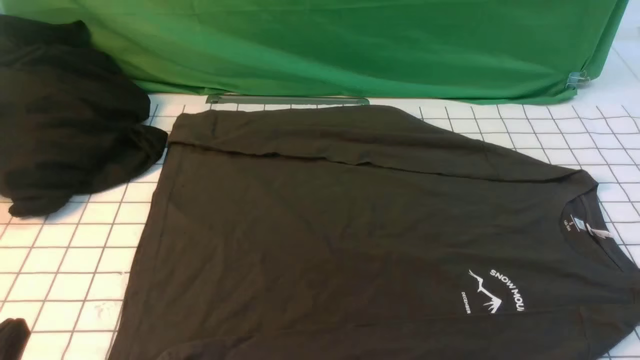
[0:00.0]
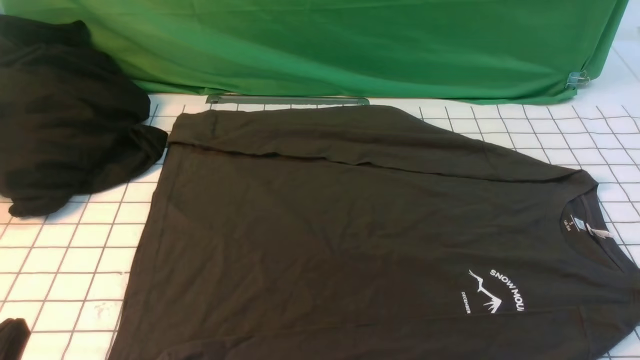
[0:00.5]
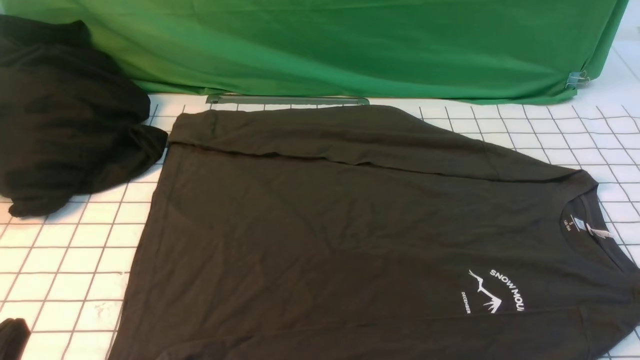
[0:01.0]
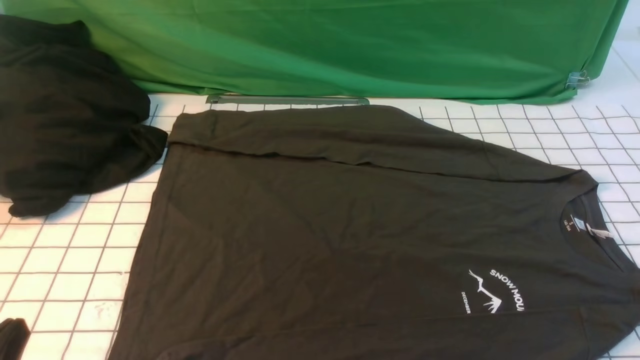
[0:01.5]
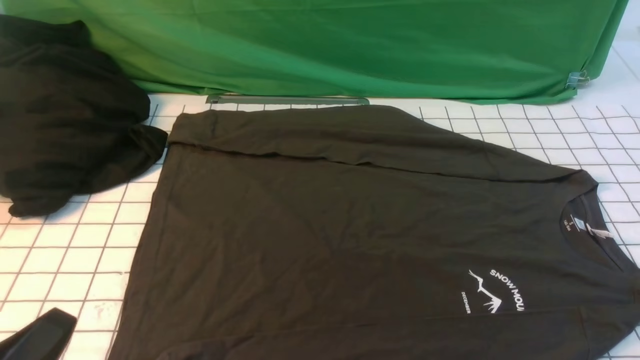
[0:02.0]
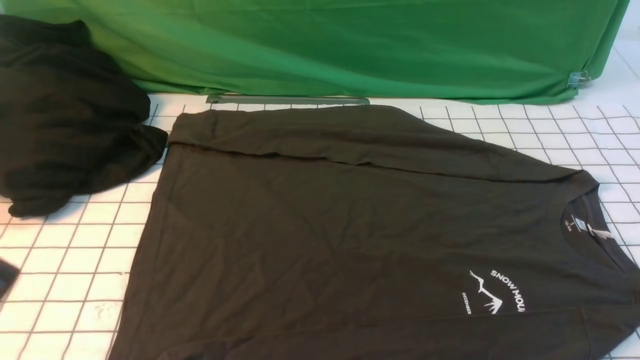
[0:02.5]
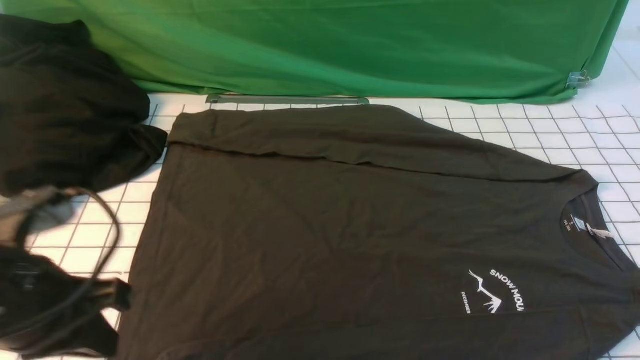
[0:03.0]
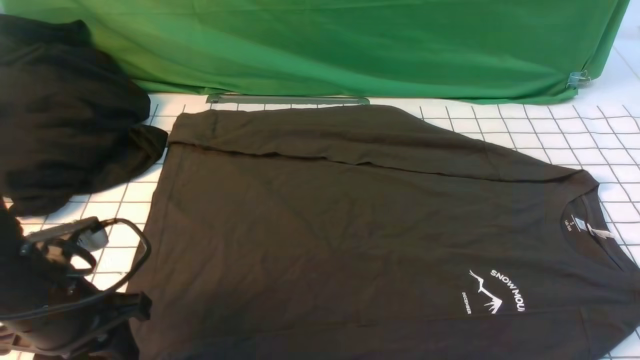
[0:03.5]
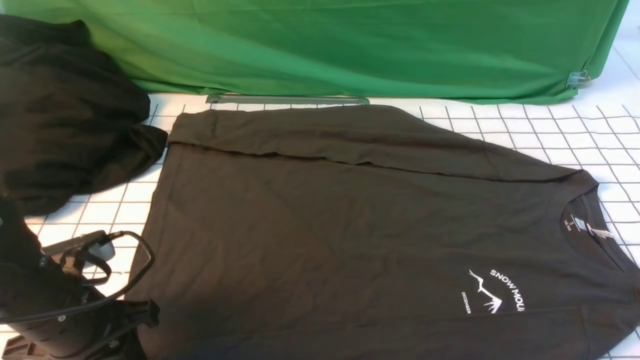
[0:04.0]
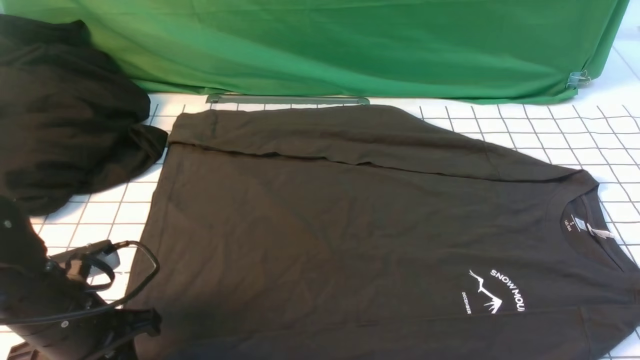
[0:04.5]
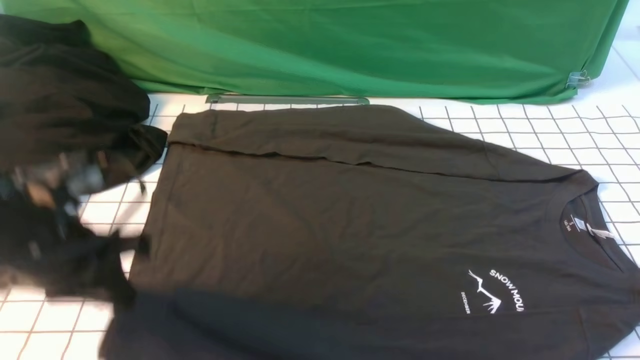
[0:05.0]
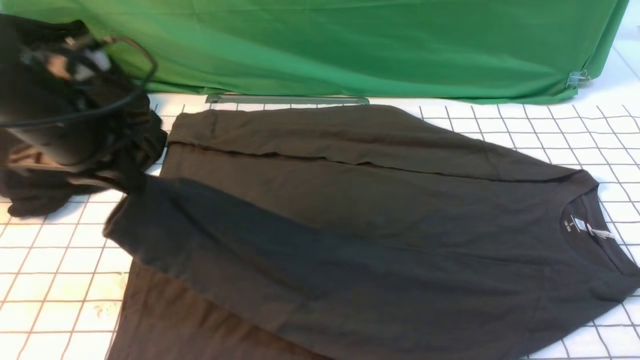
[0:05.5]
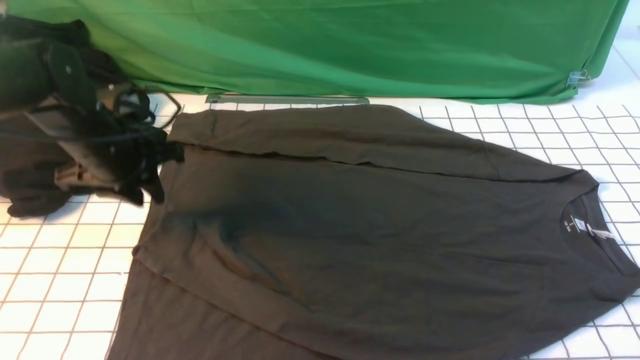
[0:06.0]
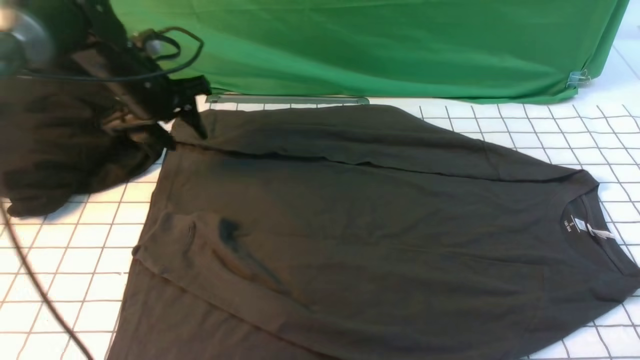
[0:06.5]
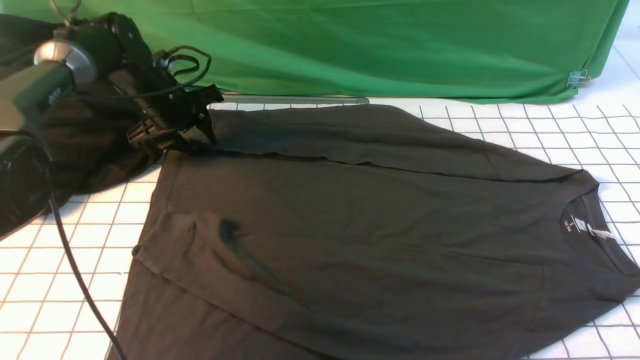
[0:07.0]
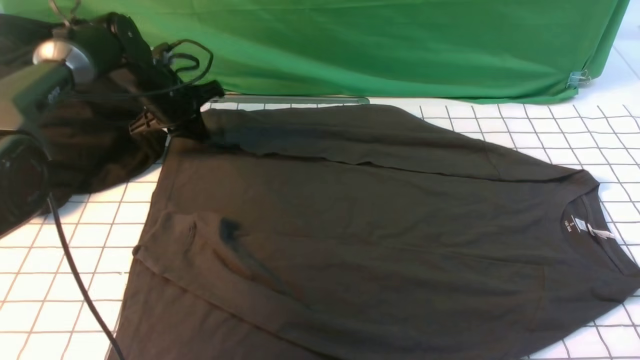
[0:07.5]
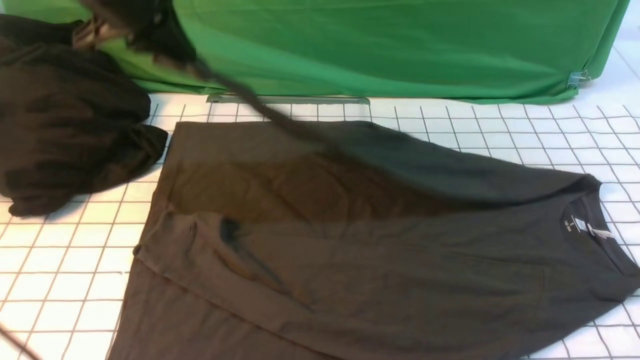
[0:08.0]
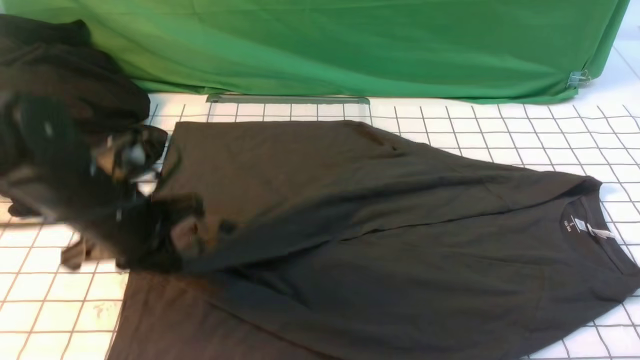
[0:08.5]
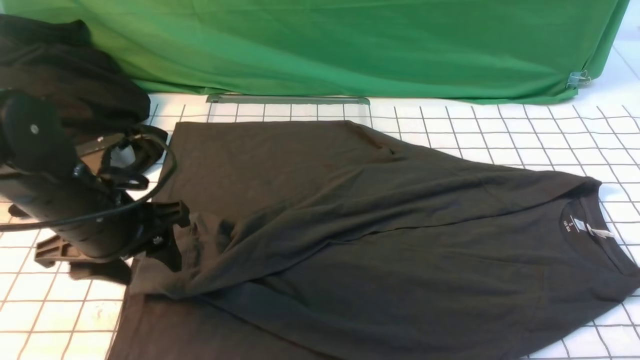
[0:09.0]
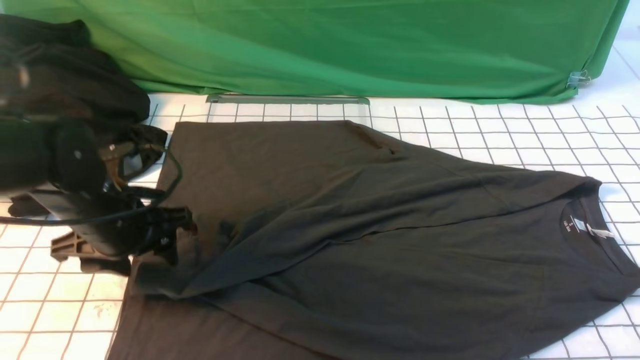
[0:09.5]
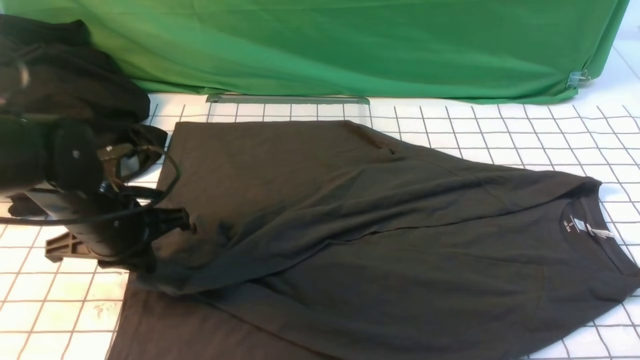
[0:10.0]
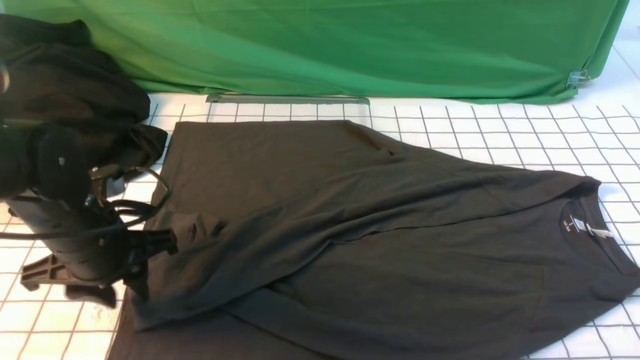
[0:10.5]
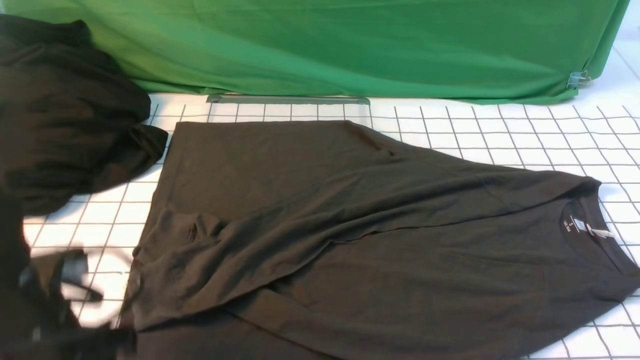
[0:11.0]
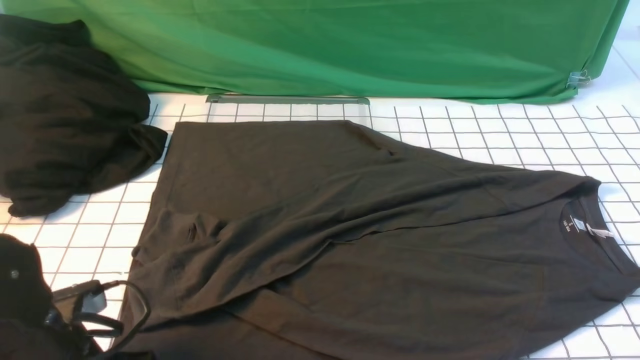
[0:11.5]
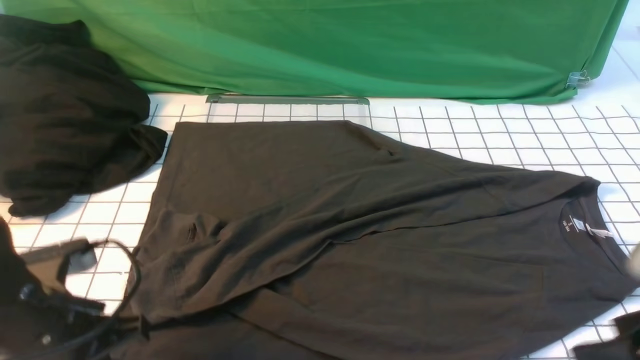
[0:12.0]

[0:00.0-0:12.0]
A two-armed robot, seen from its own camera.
Step, 0:00.0 to 0:04.5: use the left arm to clamp the cuff closest to it.
Step, 0:05.0 to 0:06.0: use the left arm to drag and place the cuff at the centered position on the left edge of the fabric.
Step, 0:06.5 to 0:07.0: use the left arm to clamp the cuff farthest from it.
Step, 0:08.0 to 0:10.5: use the left arm to drag and drop the cuff onto the cuff closest to the left arm.
0:02.0 to 0:04.0: The left gripper moves forward, about 15 cm, and opens its fingers. Meanwhile the right gripper is displaced upward and forward by about 10 cm.
0:04.0 to 0:06.0: The left gripper moves forward, roughly 20 cm, and closes, then reopens.
0:06.0 to 0:08.0: The left gripper moves upward, about 10 cm, and closes.
0:08.0 to 0:10.0: The left gripper travels downward and backward by some 20 cm, and opens, then closes once more.
0:10.0 to 0:12.0: The left gripper goes roughly 10 cm backward, and opens and closes again. Meanwhile the right gripper opens its fingers.

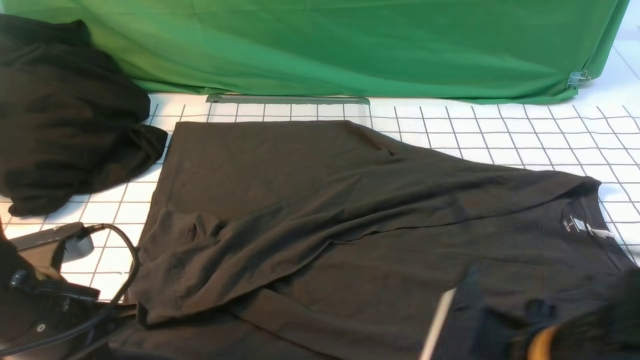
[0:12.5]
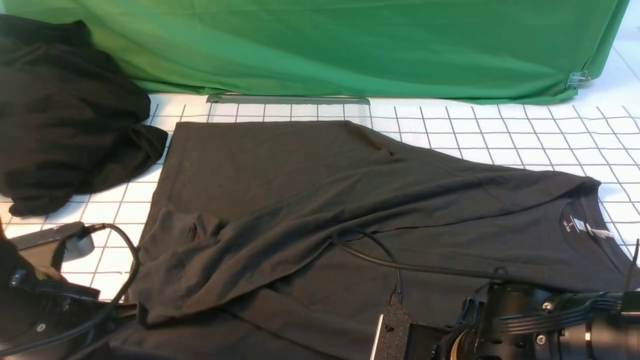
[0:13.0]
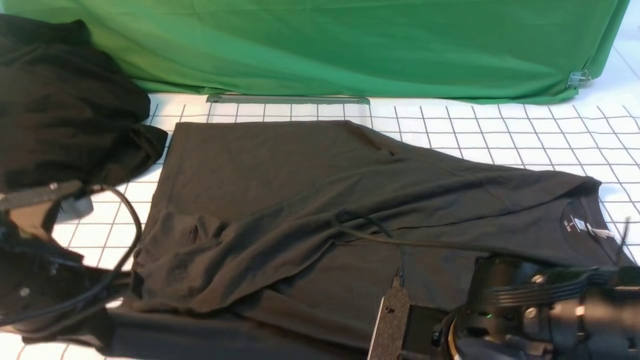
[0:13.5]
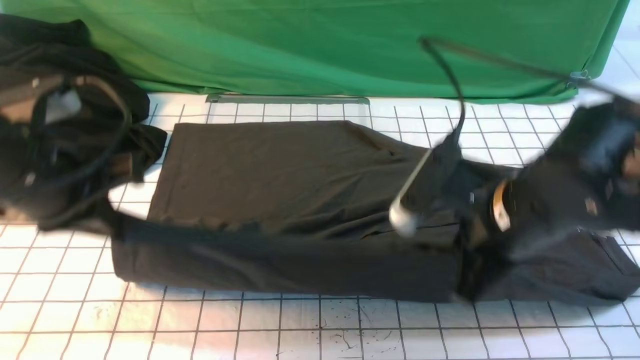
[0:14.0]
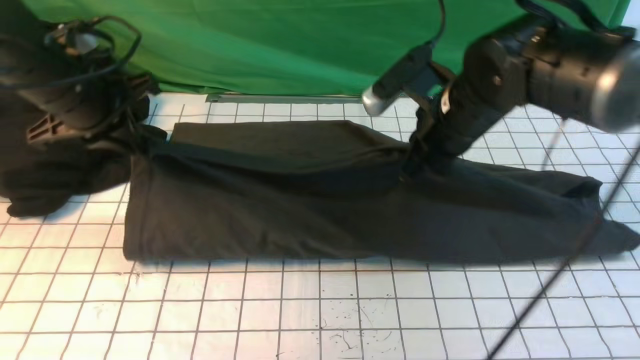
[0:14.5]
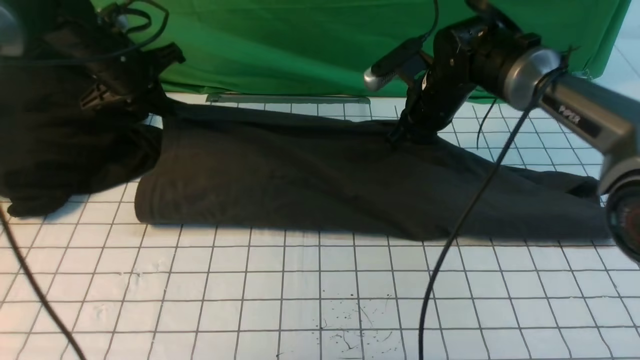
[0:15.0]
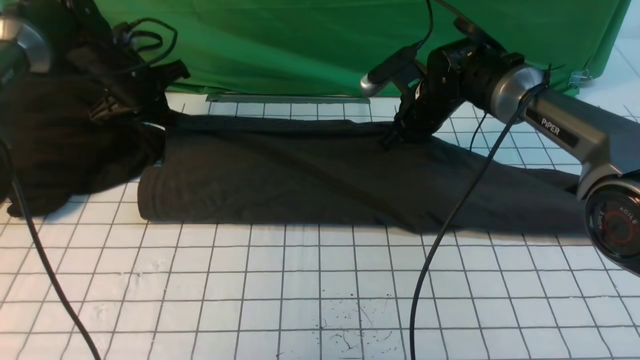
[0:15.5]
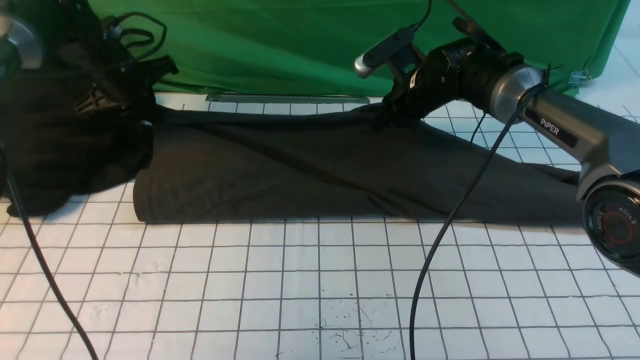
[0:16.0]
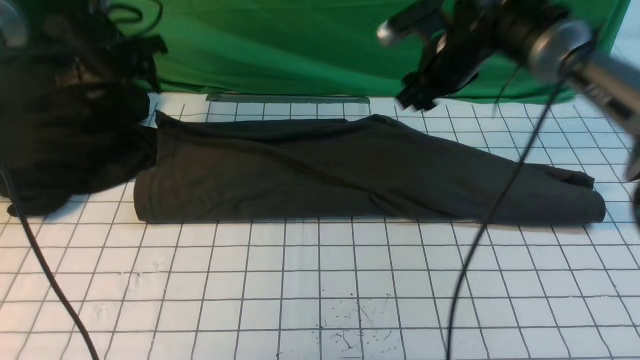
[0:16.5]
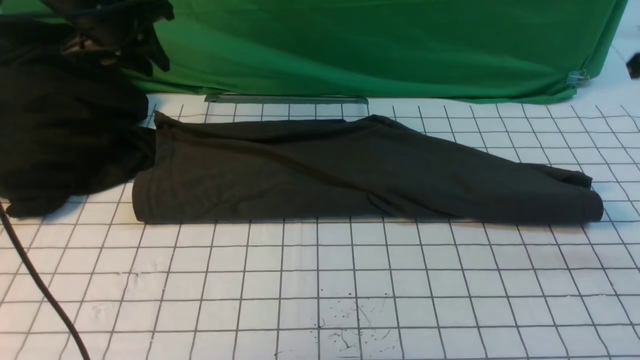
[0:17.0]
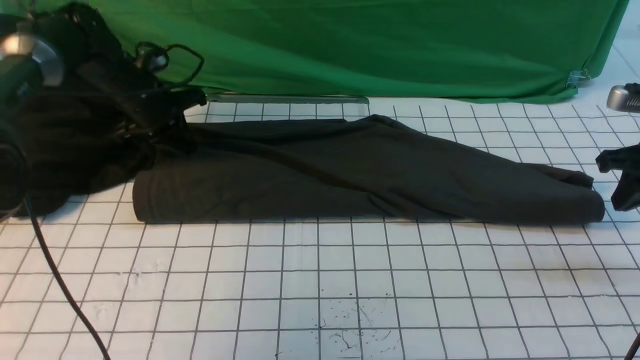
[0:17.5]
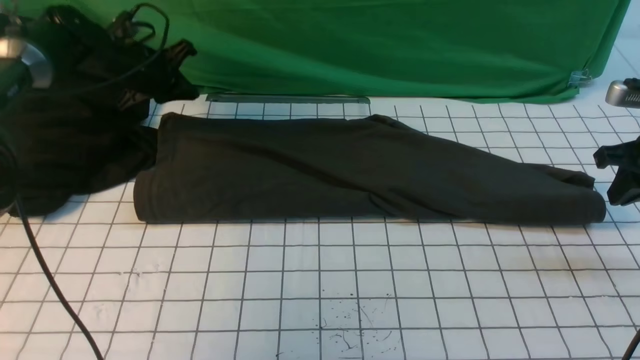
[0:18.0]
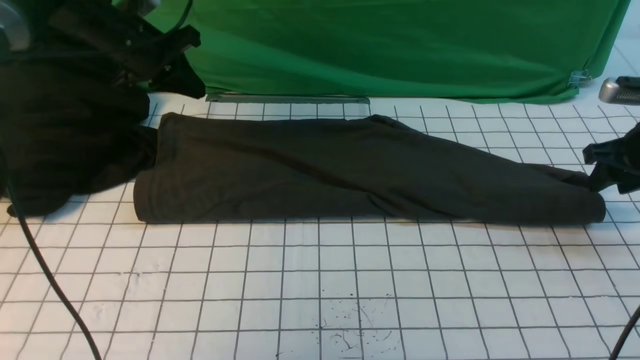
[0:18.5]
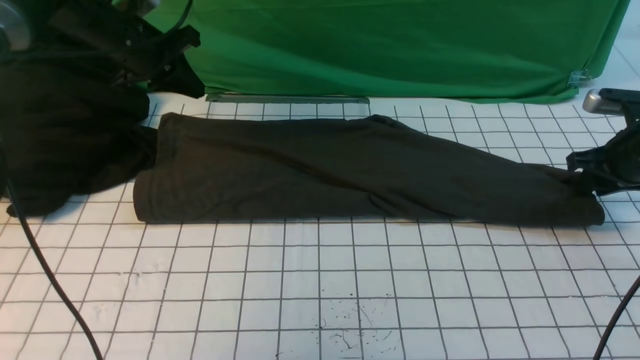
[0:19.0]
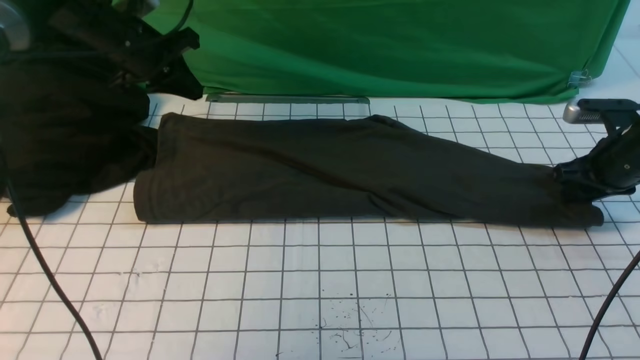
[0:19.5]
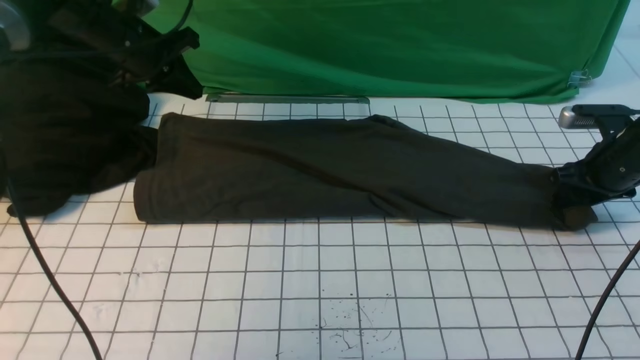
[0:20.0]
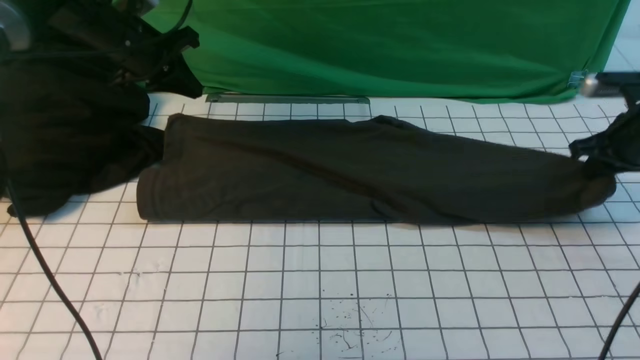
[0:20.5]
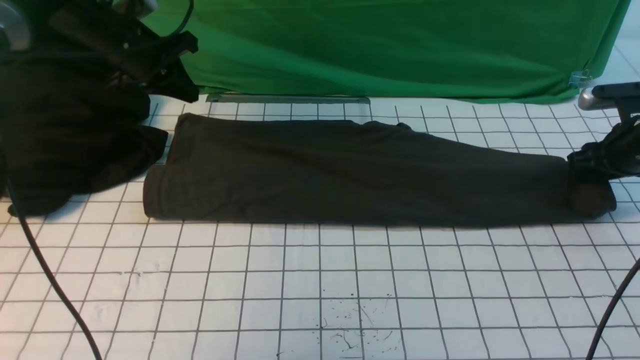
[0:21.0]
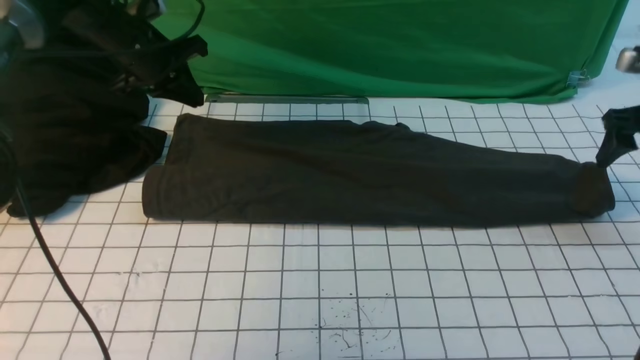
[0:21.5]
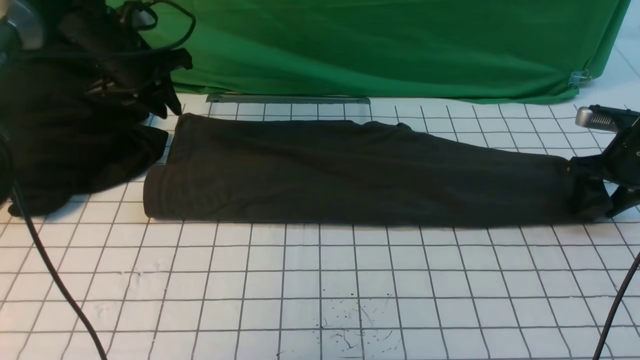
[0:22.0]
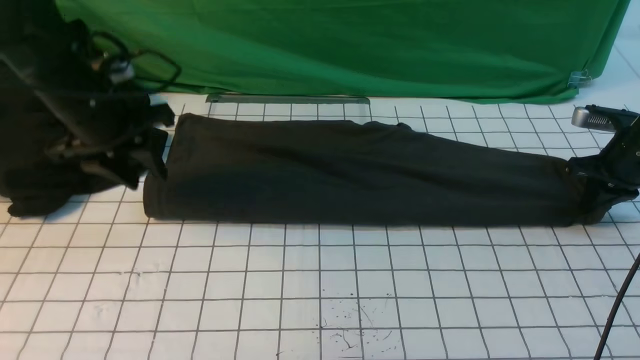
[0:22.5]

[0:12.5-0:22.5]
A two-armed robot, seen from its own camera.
Step, 0:14.0 to 0:18.0: use both arms to drag the lower edge of the fabric forward and fold it over the upper edge.
0:12.5 to 0:14.5: The two grippers go about 20 cm forward. The right gripper closes up.
0:14.5 to 0:16.5: The right gripper heads forward and to the right, covering roughly 10 cm, and opens its fingers. Meanwhile the left gripper travels forward by about 10 cm, and opens up.
0:16.5 to 0:18.5: The right gripper goes about 20 cm to the right and backward, and closes, then opens again, while the left gripper travels downward and back again, approximately 10 cm each way, and closes its fingers.
0:18.5 to 0:20.5: The right gripper closes its fingers.
0:20.5 to 0:22.5: The right gripper shifts by approximately 5 cm, and opens, then closes once more; the left gripper goes approximately 10 cm backward, and opens its fingers.
